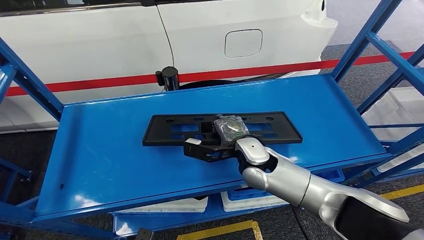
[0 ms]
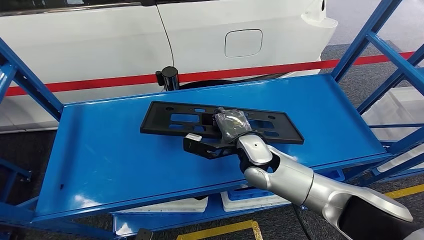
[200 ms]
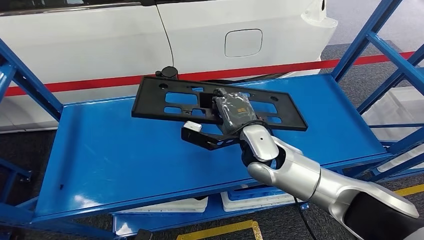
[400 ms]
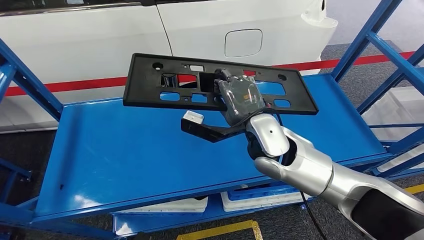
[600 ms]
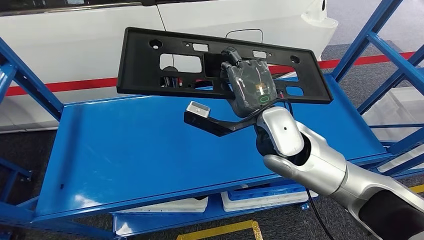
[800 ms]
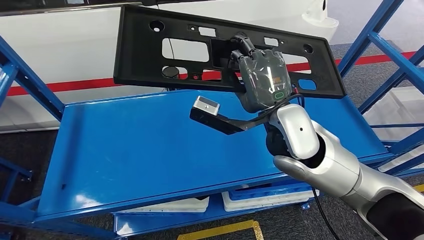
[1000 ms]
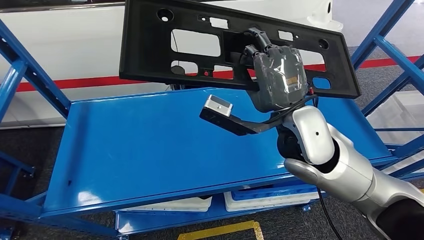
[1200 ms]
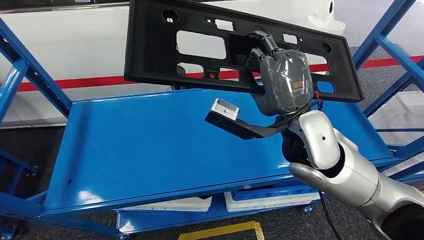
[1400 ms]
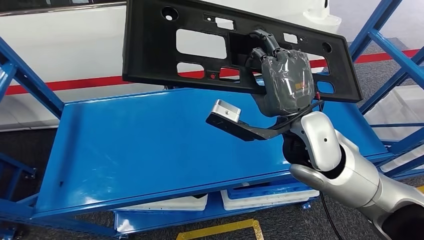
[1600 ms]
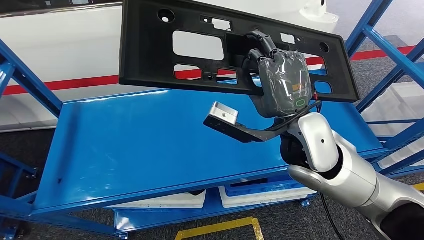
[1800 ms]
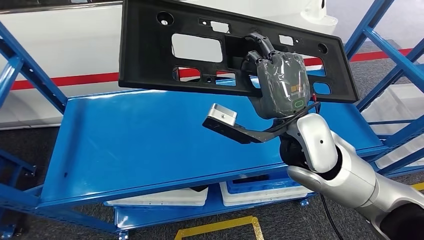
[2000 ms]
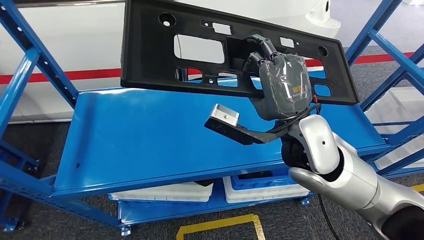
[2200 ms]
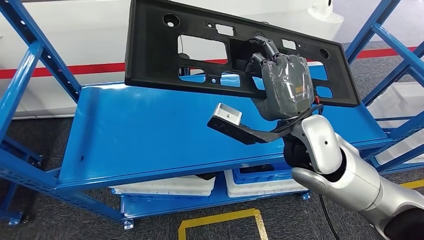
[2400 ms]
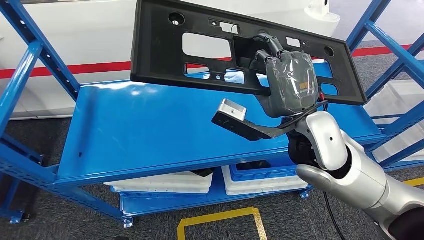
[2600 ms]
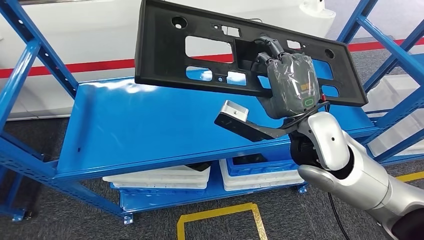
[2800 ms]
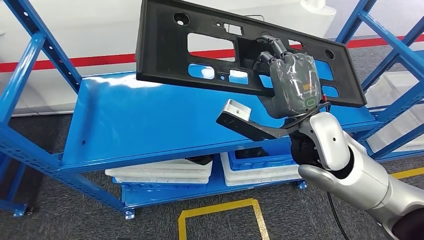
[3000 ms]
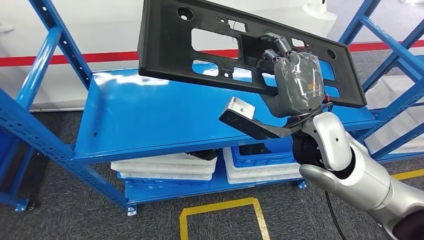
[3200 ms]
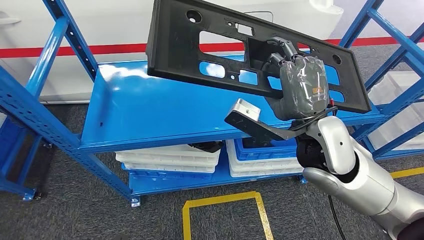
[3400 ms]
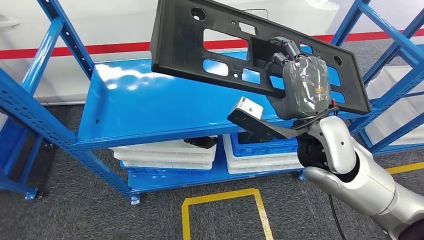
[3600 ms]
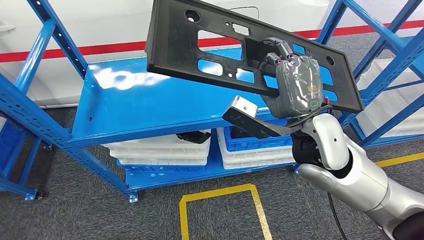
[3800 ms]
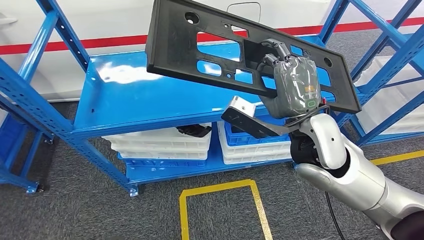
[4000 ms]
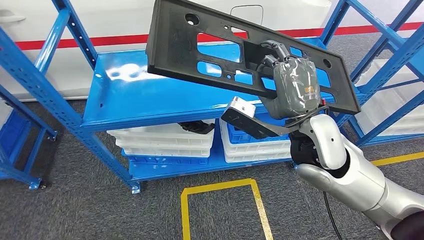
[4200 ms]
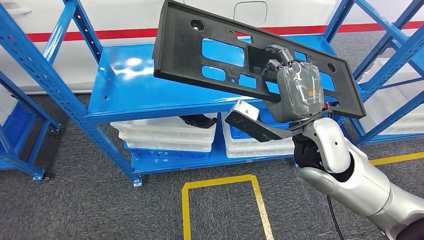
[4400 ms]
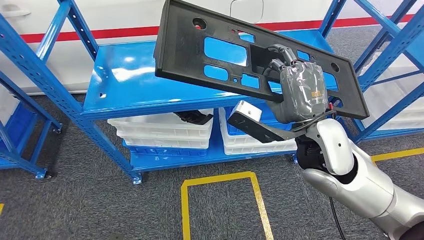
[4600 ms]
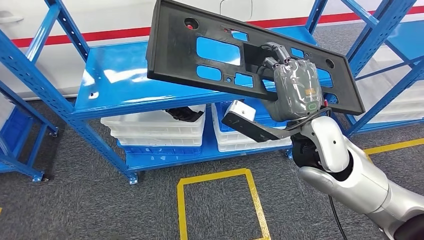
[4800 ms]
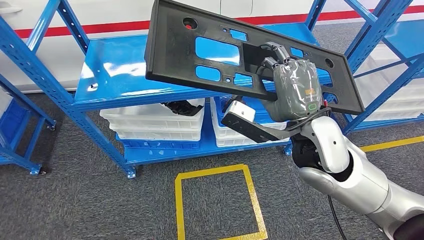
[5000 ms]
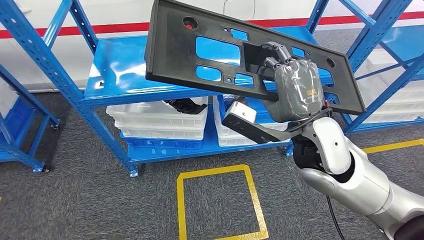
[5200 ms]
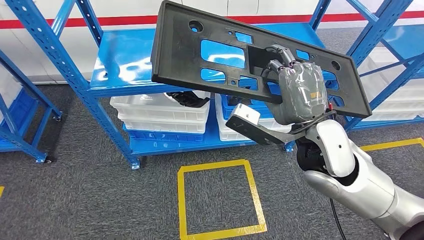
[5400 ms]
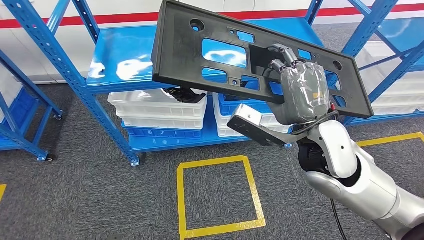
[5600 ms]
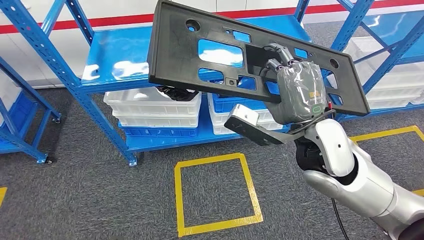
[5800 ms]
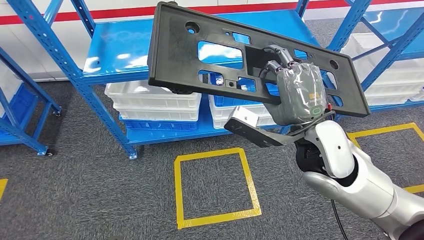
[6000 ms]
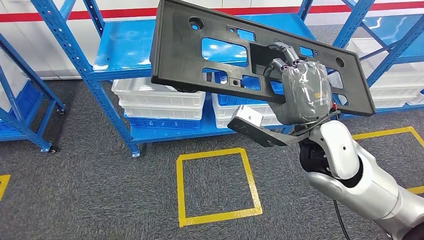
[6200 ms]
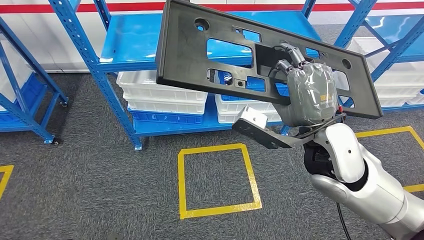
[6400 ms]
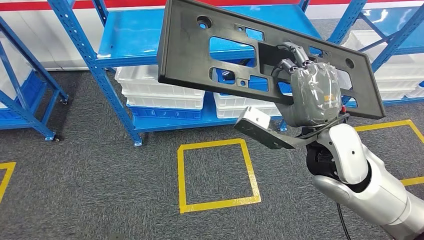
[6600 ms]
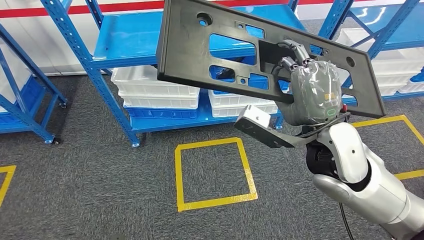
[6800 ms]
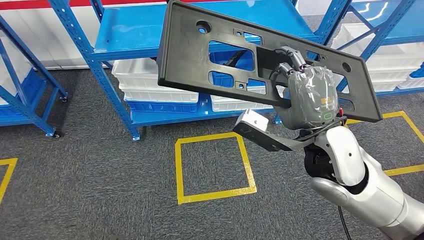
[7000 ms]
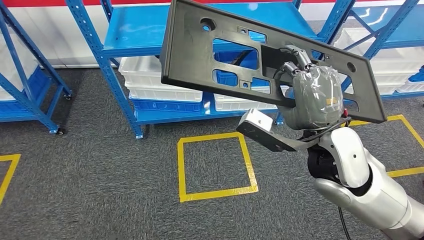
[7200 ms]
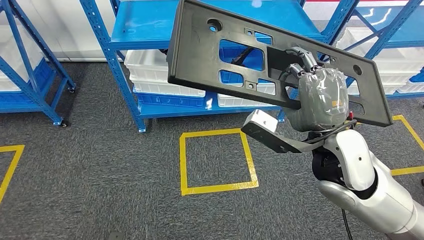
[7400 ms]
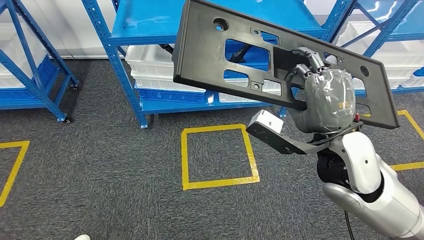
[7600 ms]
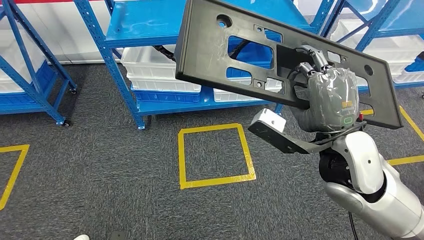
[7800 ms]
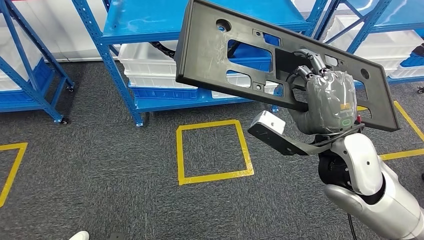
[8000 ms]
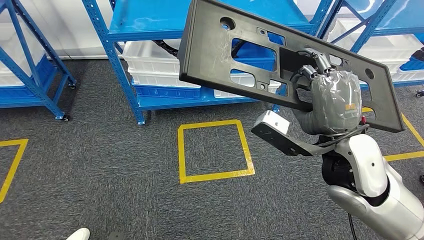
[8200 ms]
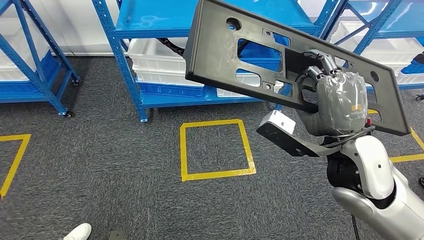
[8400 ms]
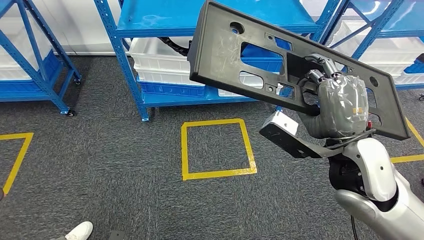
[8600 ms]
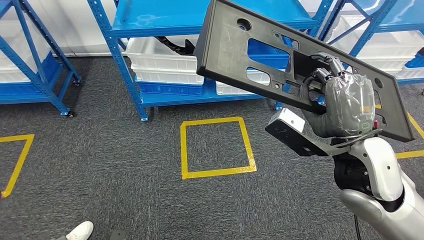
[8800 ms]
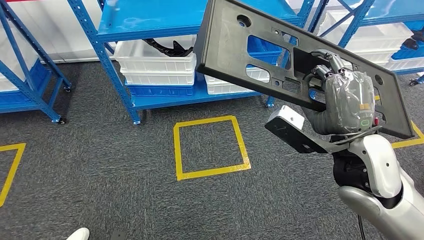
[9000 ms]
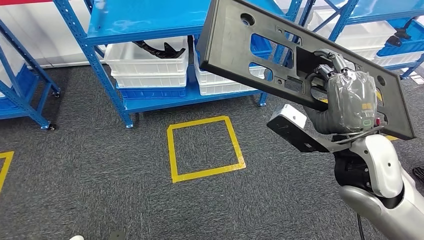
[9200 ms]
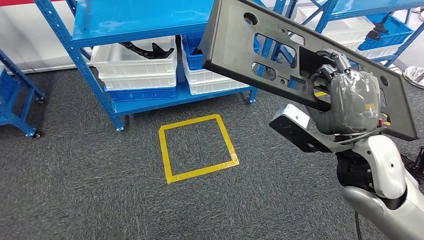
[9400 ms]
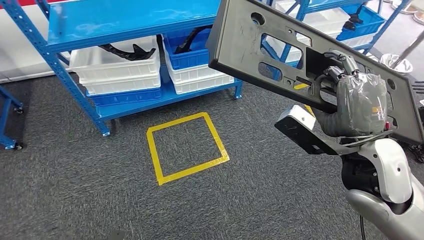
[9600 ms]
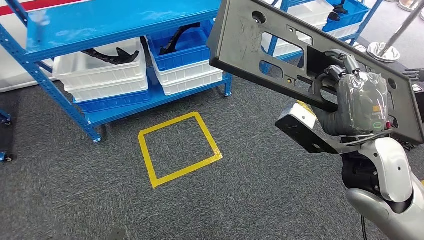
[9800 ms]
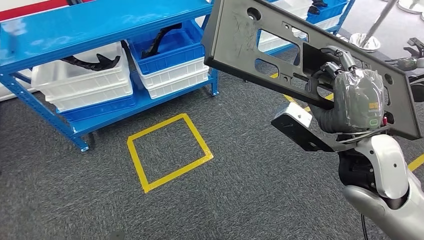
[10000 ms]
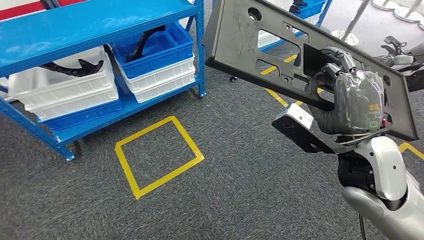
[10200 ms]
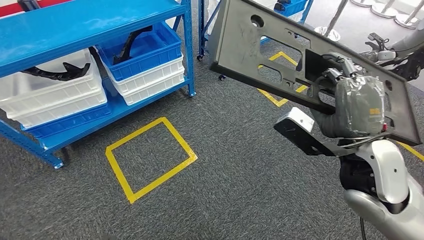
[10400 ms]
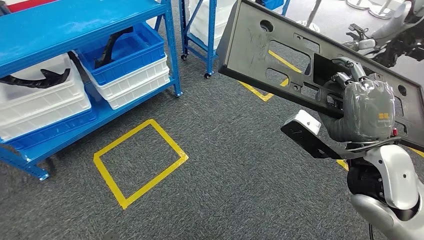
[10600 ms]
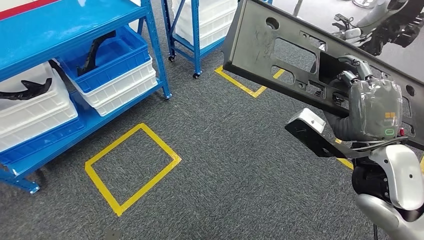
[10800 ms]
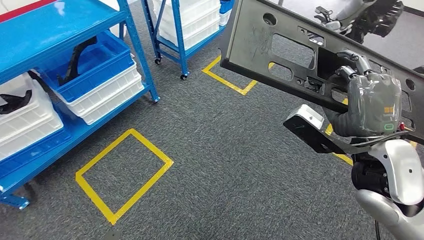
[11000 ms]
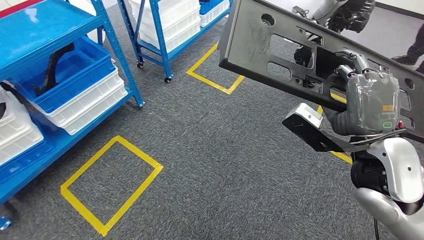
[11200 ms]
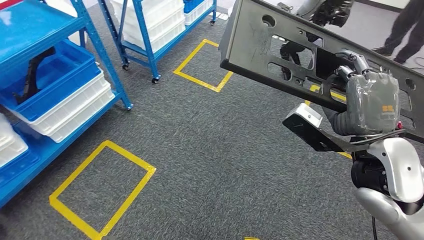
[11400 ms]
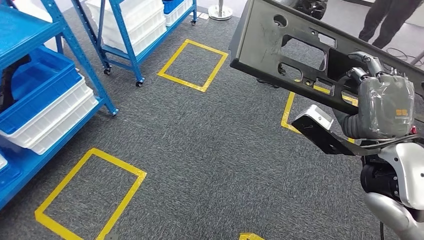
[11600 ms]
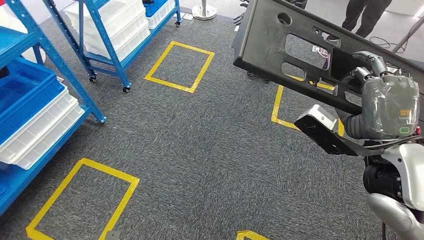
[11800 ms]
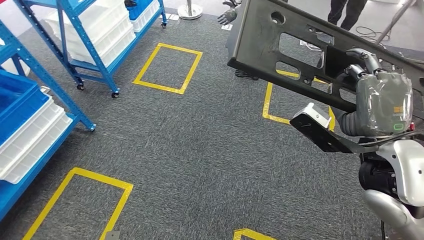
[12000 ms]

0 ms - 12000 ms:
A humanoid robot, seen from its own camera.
Step, 0 ms - 3600 ms: Pick up the large material from the shelf.

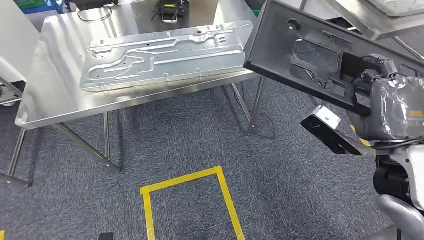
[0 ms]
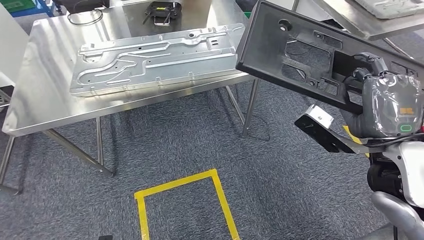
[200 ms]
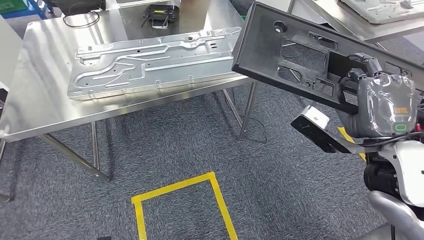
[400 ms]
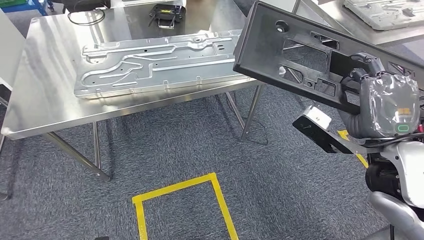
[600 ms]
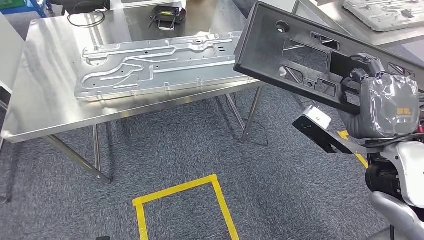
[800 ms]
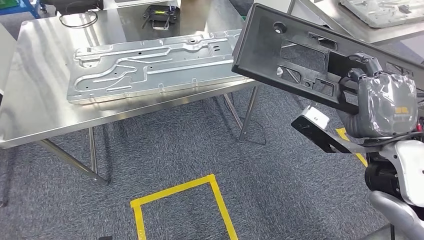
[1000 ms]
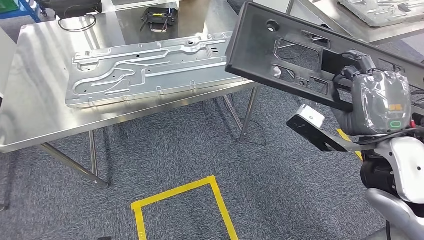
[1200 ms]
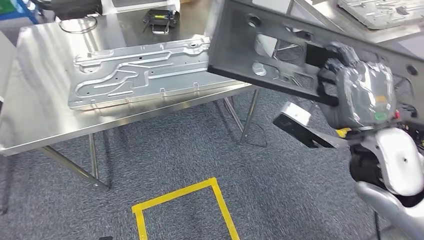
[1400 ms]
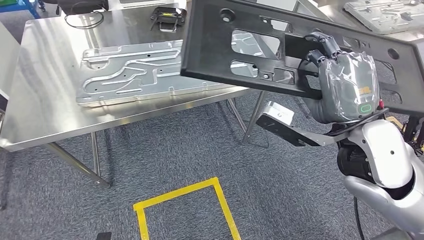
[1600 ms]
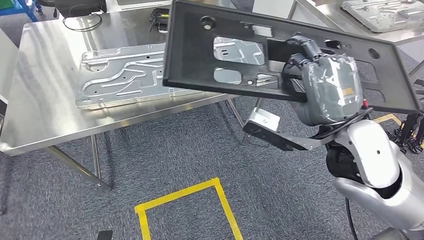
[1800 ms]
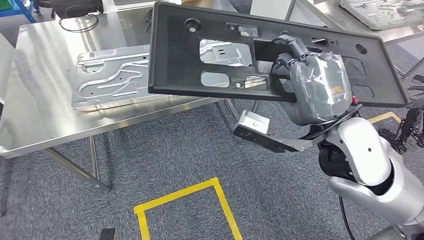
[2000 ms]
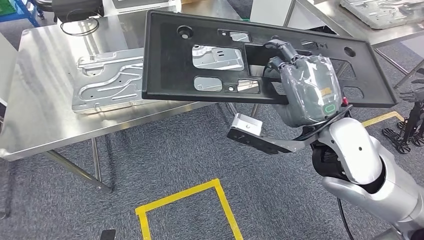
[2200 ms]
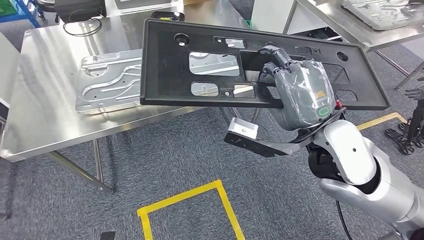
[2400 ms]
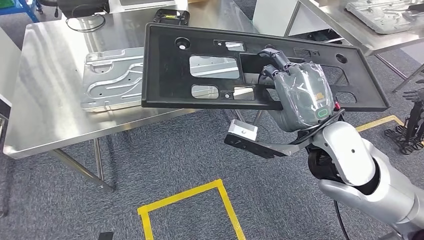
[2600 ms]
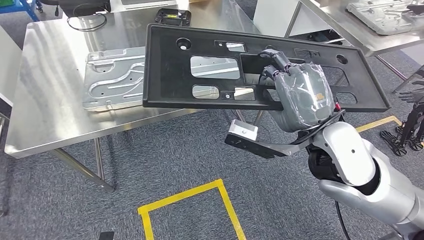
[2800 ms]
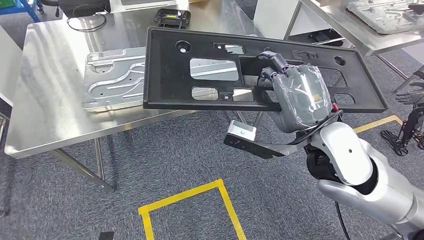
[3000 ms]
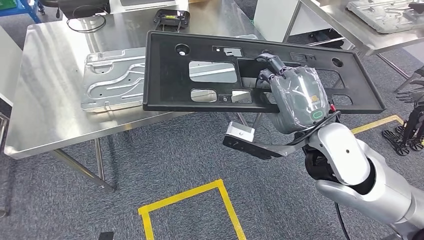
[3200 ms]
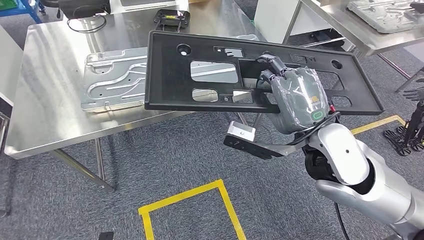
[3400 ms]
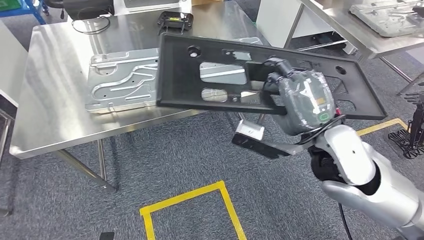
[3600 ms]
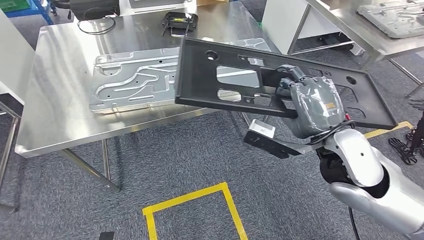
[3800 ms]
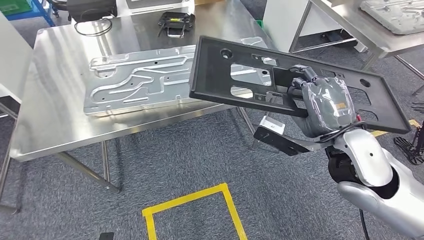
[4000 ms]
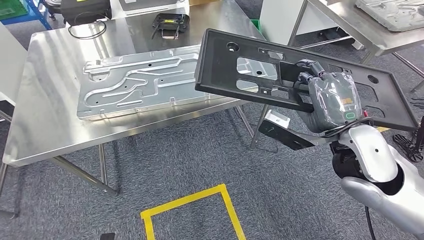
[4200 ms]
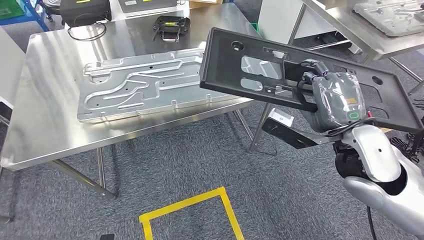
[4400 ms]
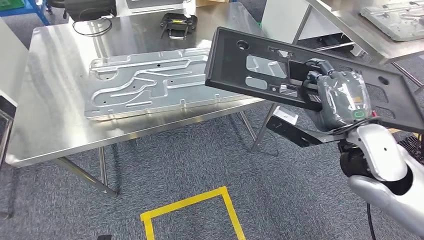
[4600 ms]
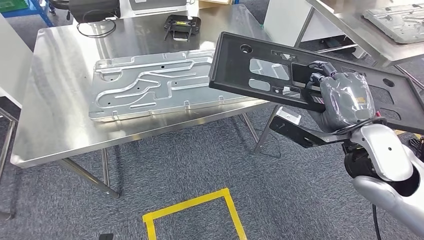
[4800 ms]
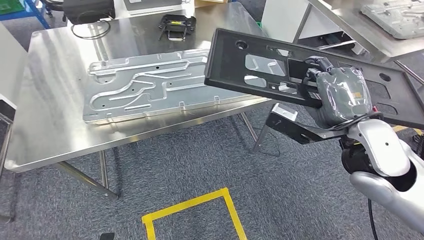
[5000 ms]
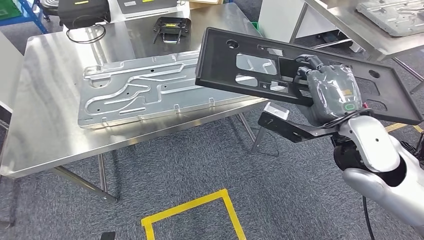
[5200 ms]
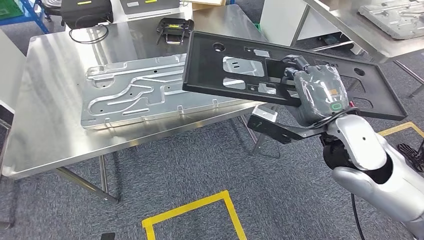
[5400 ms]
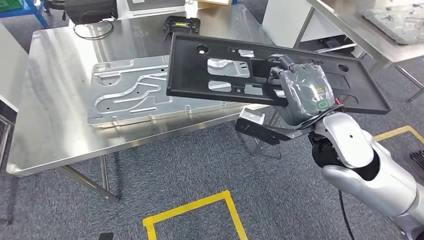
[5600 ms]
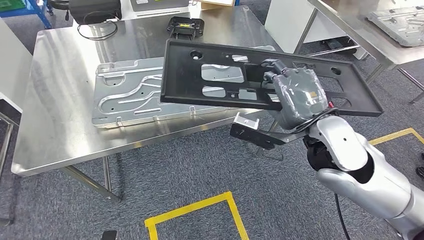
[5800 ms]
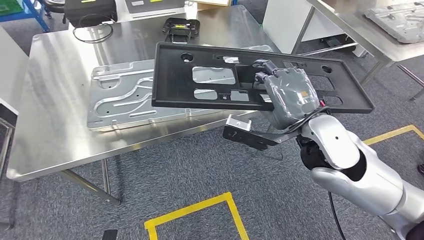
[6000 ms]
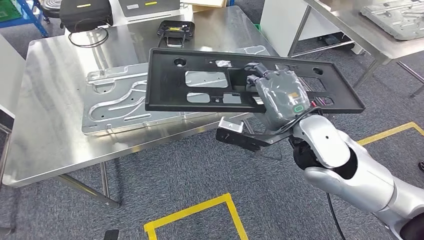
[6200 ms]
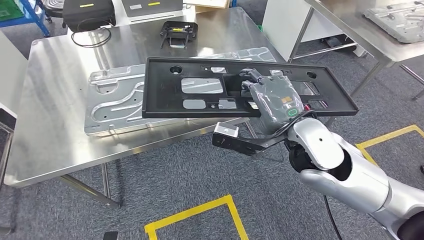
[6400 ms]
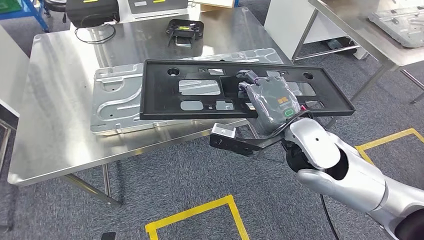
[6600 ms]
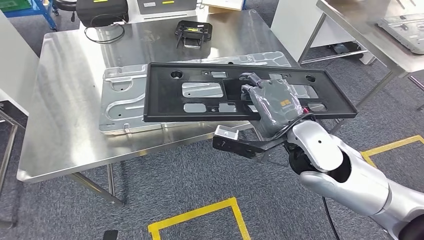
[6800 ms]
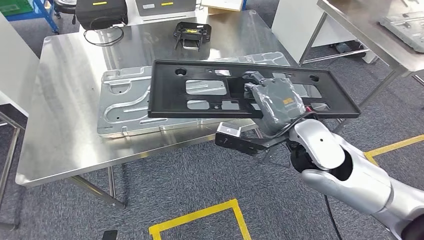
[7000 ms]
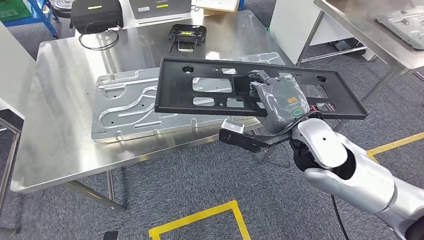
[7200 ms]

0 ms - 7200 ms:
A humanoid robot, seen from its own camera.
Step, 0 ms - 4400 ms: Move the large material to the workbench.
